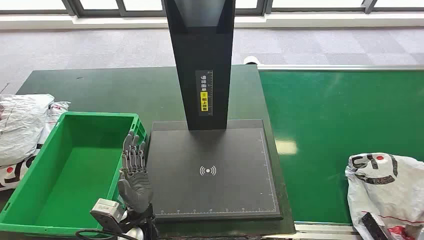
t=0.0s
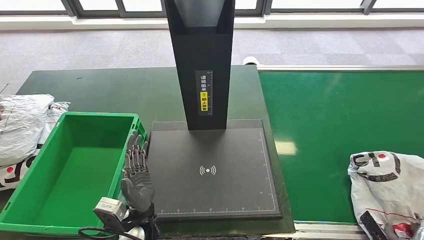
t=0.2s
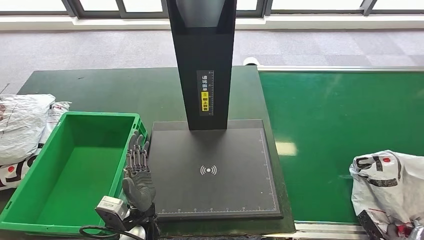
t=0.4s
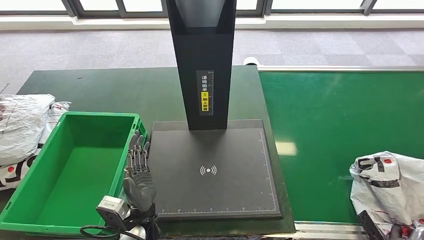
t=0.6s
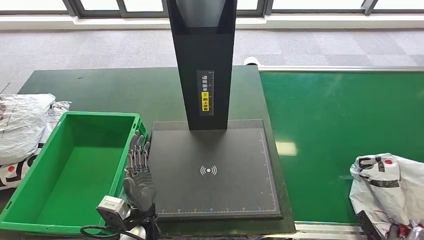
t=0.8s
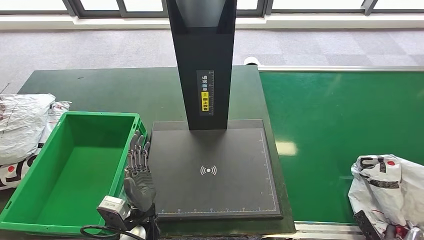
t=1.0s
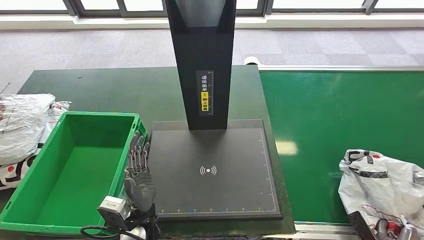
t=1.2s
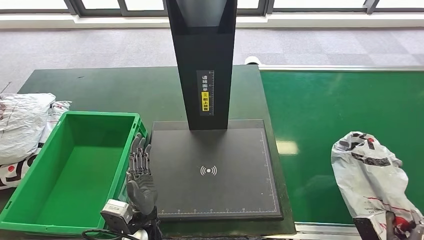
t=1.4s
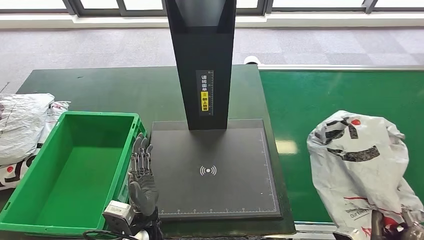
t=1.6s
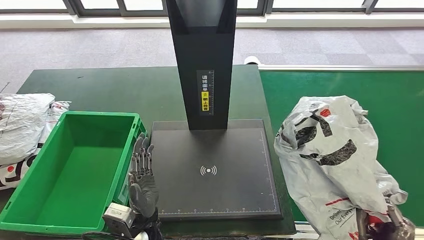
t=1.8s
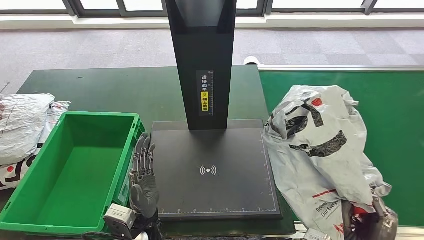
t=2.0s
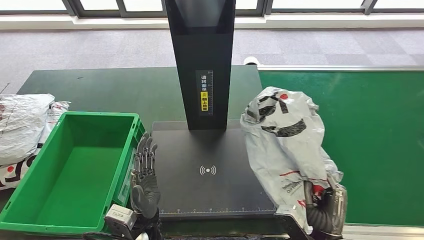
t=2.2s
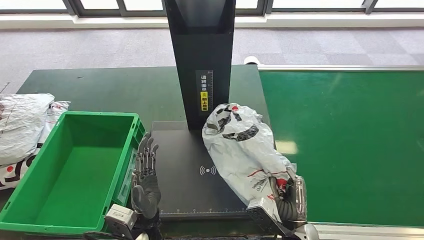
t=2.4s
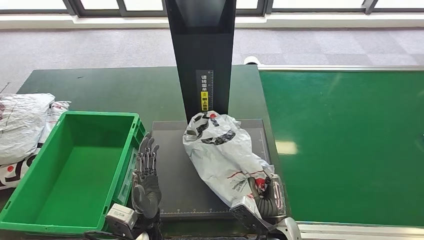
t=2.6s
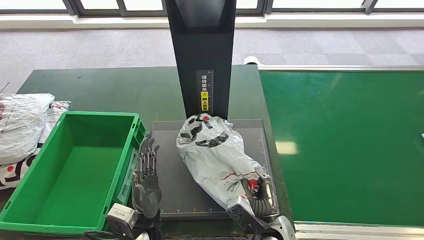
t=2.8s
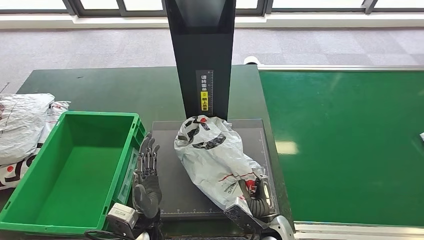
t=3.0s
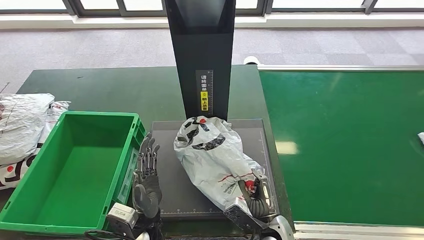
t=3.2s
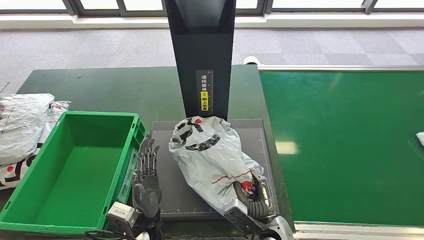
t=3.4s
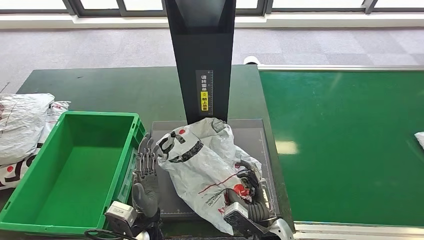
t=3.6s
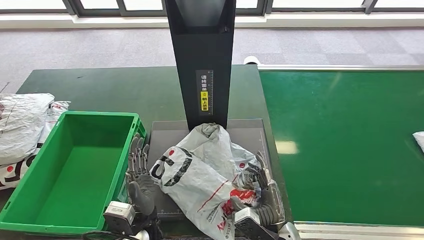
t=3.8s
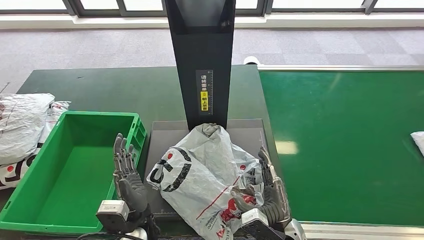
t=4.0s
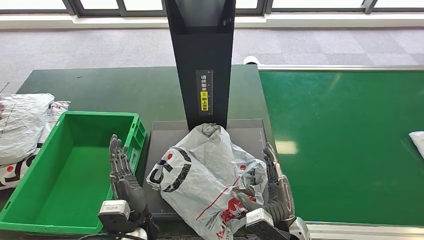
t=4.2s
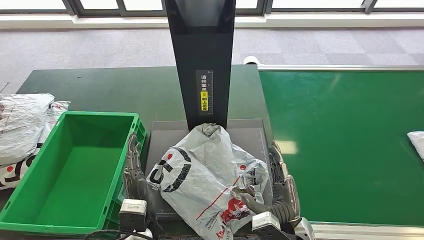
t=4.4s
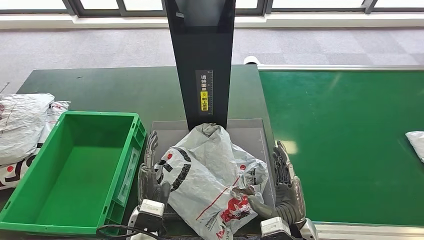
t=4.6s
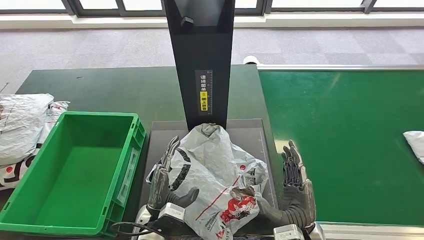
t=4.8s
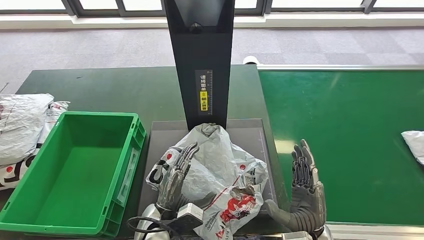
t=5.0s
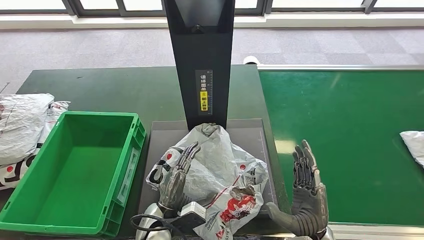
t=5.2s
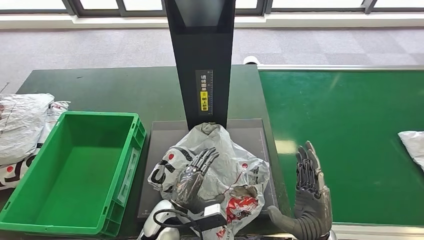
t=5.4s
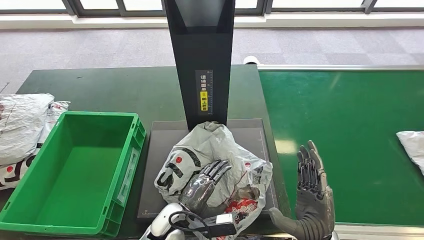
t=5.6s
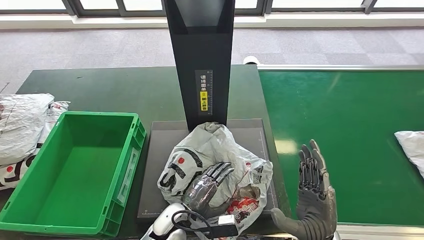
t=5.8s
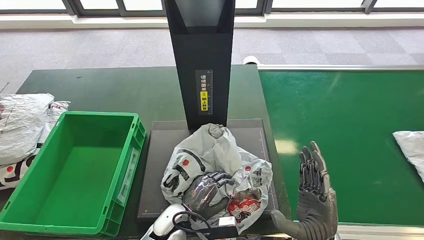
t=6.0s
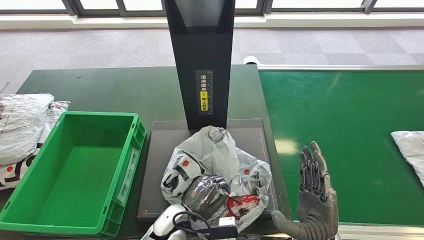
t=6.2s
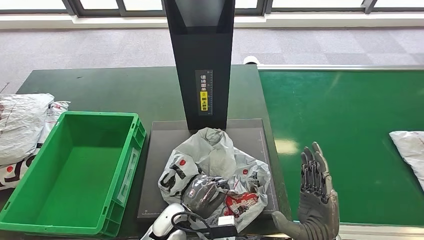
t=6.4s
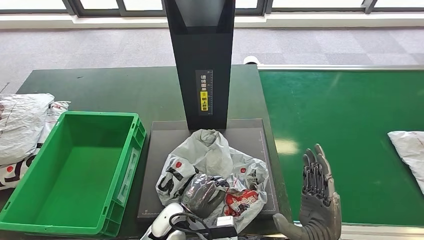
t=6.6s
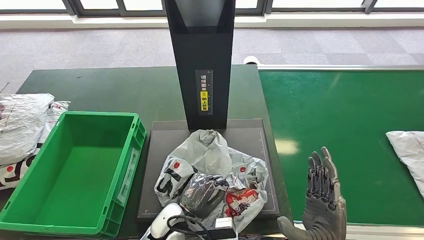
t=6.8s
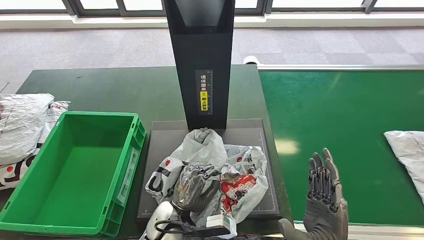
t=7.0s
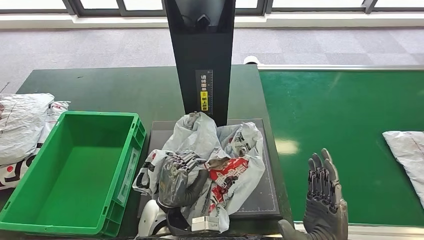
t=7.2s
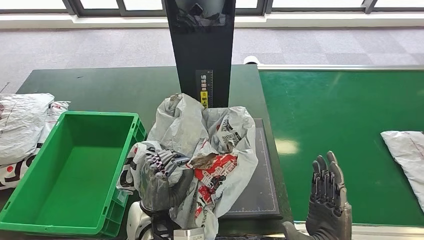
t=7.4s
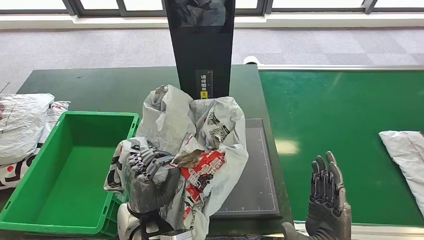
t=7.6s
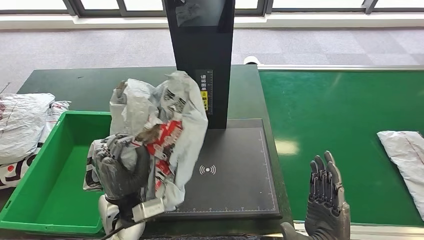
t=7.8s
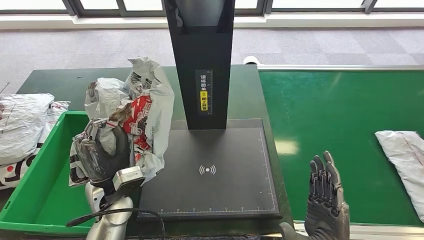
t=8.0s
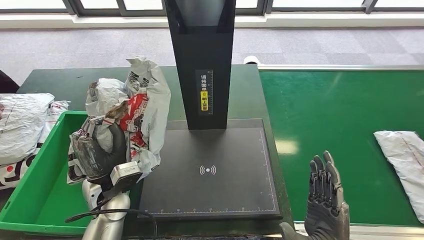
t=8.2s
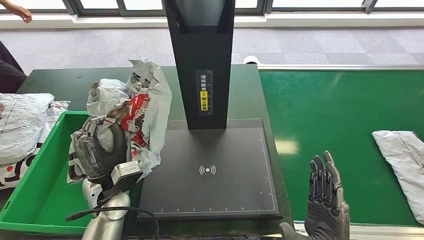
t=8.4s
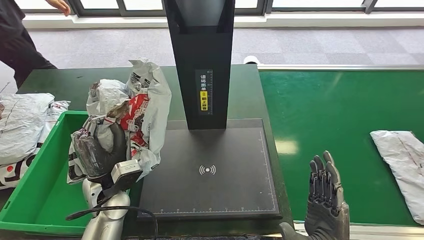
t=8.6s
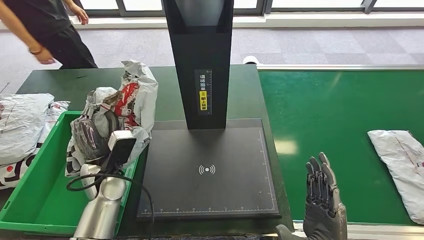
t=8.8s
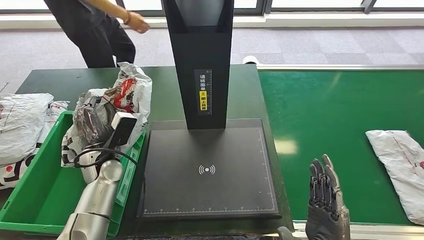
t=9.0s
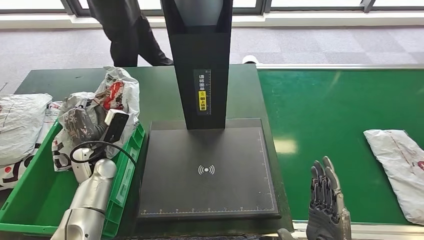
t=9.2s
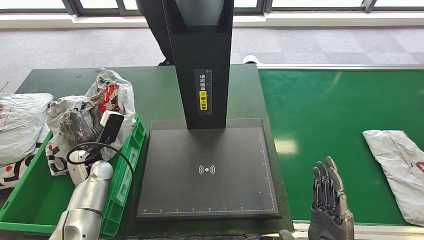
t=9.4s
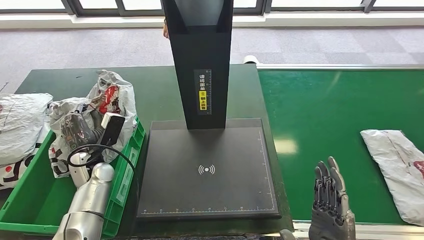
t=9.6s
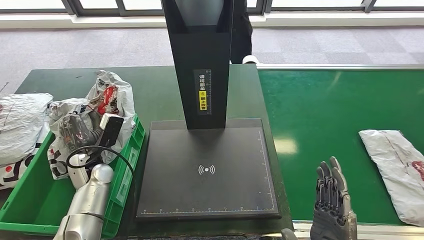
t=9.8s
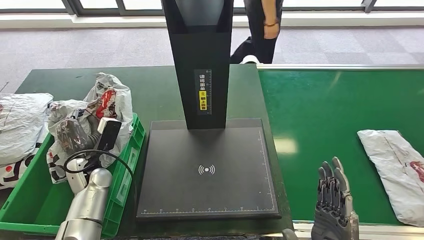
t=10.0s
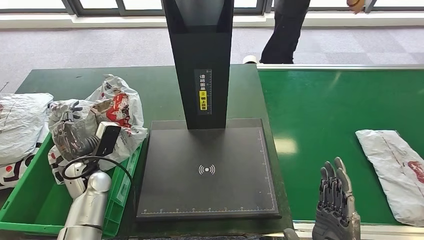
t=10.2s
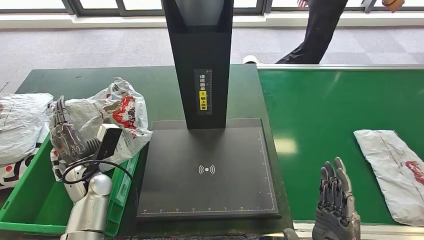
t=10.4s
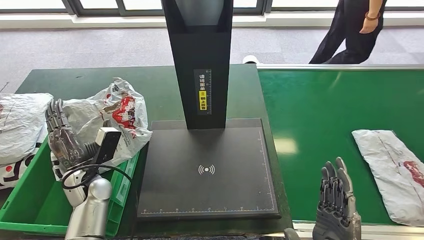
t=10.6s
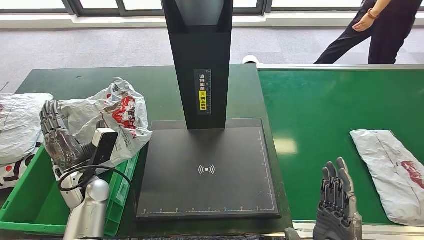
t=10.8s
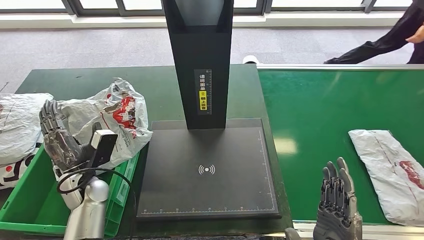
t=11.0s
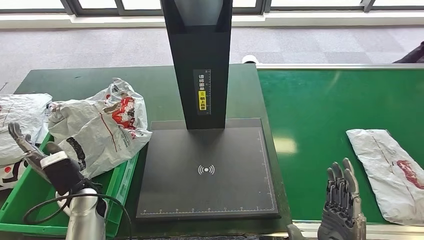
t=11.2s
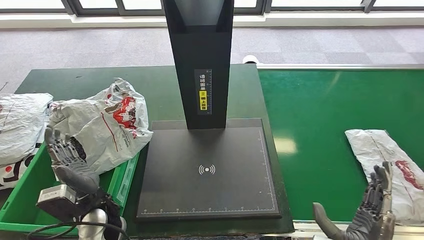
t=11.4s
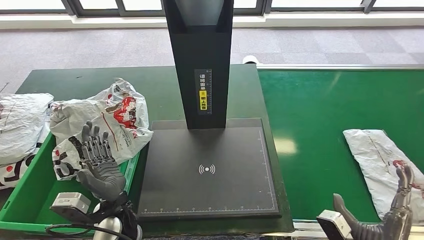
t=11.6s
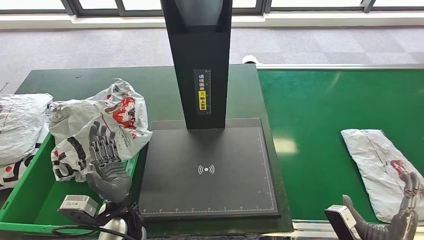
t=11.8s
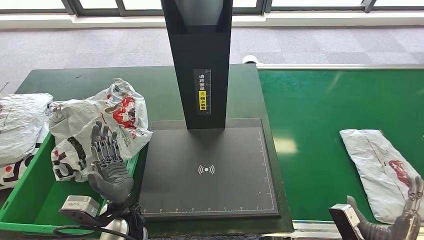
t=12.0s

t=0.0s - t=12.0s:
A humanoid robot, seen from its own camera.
Step, t=0.0s - t=2.6s: Take the parcel off the conveyor belt.
Step, t=2.8s - t=5.4s: Place the parcel onto the inbound machine.
Step, t=5.6s - t=8.4s: Pick up the parcel from the inbound machine.
Step, t=8.8s - t=11.6s: Put the parcel inside the courier box.
t=3.0s - t=4.4s: The right hand changes place by some 5 cm.
t=4.4s - t=6.0s: The right hand shifts by roughly 5 cm, while the left hand shifts some 10 cm to the right and downward.
t=6.0s - t=7.6s: The left hand heads upward and to the left, covering about 15 cm.
t=10.4s - t=12.0s: The left hand is displaced to the right and backward by about 15 cm, while the right hand is displaced to the right and downward by about 15 cm.

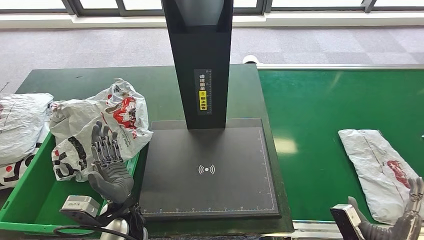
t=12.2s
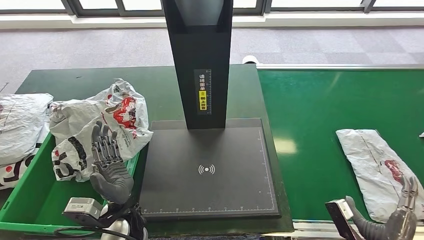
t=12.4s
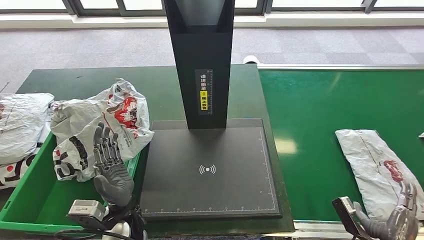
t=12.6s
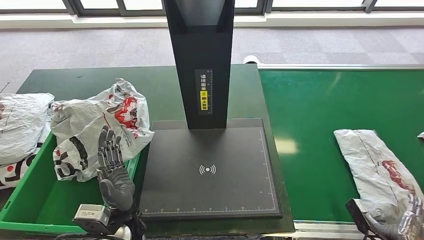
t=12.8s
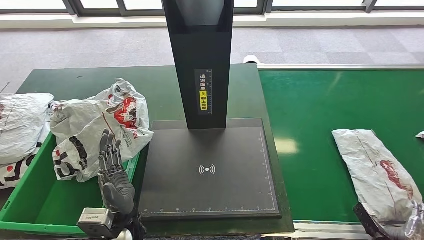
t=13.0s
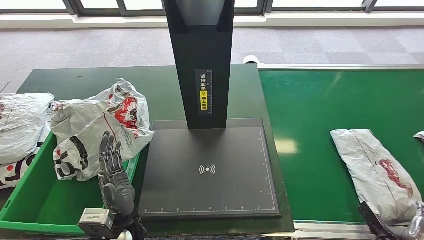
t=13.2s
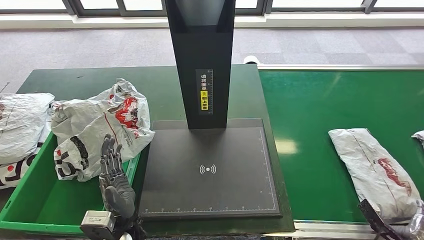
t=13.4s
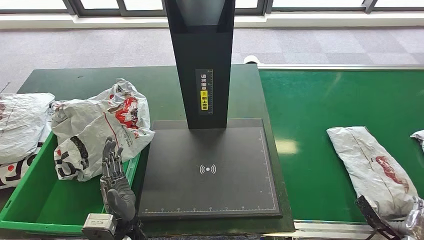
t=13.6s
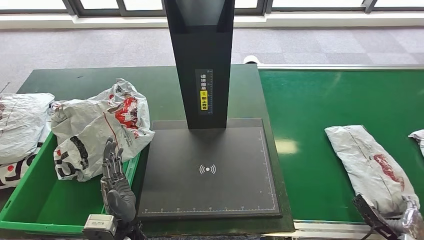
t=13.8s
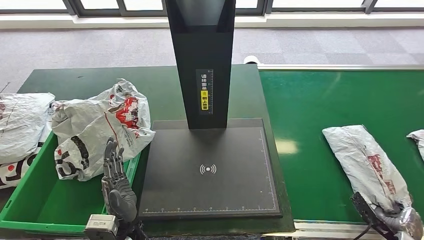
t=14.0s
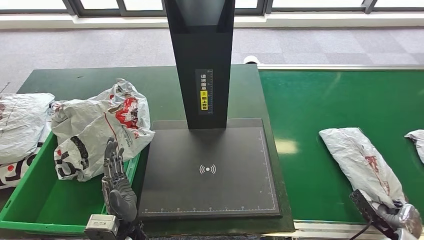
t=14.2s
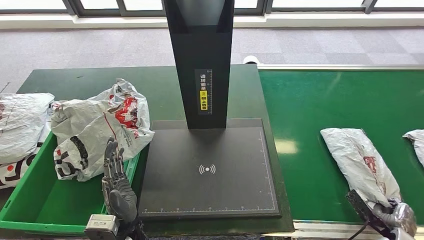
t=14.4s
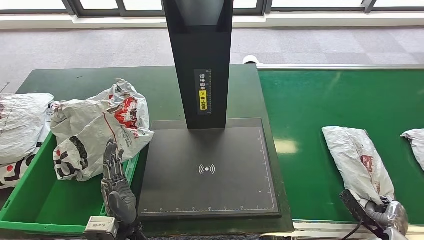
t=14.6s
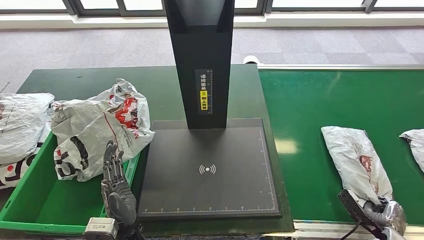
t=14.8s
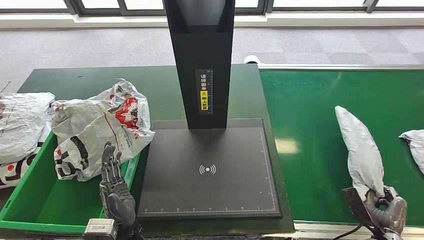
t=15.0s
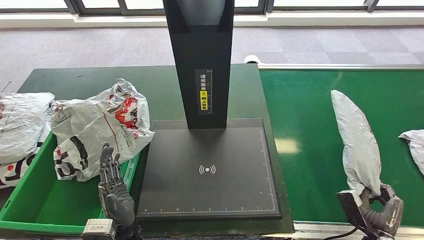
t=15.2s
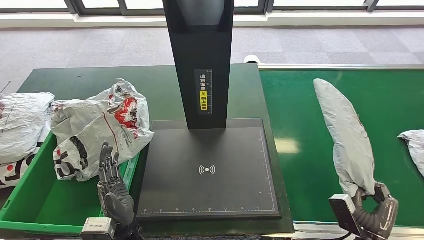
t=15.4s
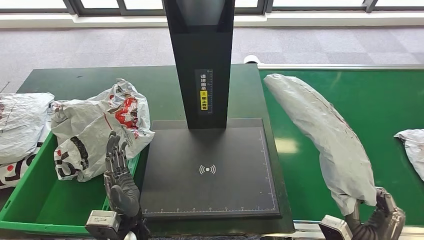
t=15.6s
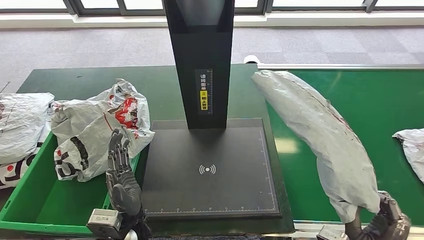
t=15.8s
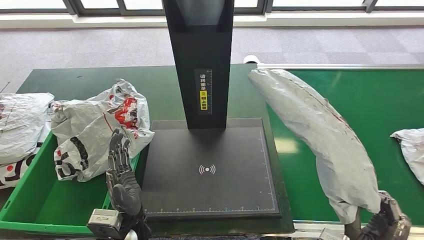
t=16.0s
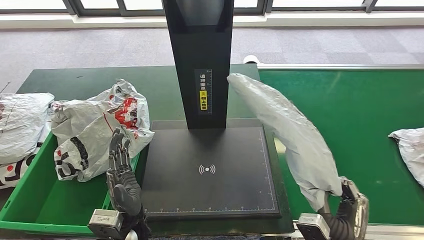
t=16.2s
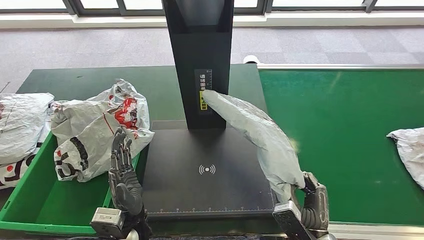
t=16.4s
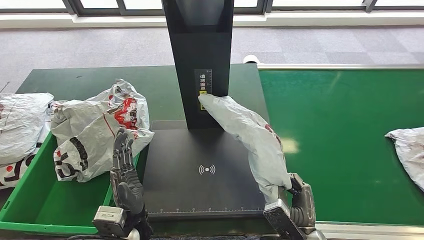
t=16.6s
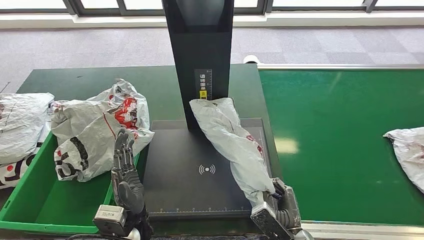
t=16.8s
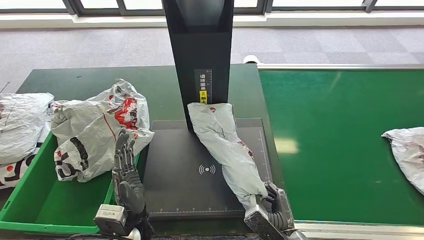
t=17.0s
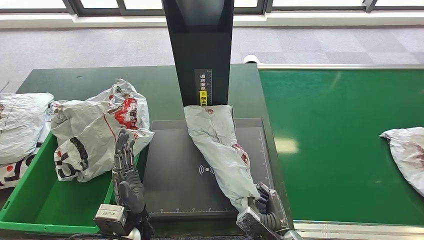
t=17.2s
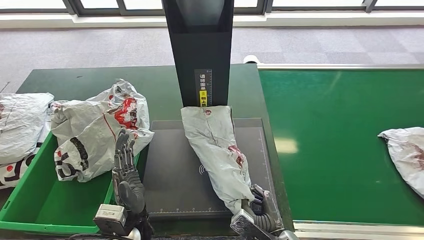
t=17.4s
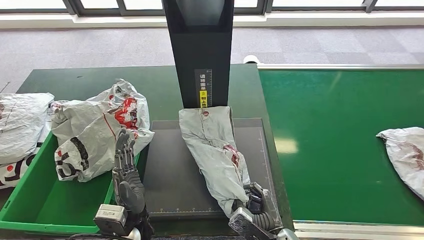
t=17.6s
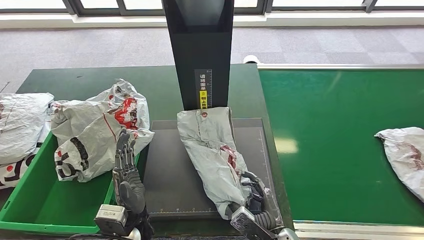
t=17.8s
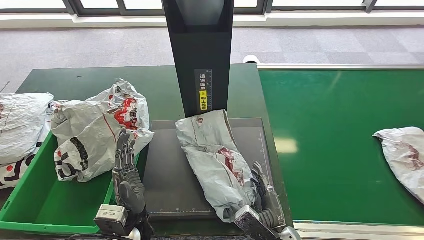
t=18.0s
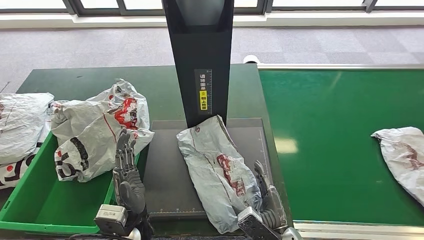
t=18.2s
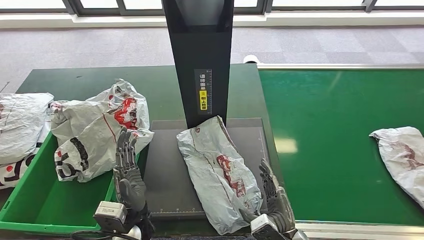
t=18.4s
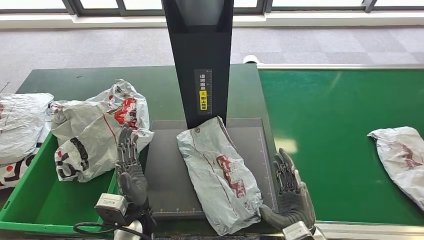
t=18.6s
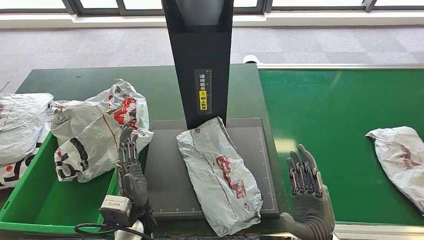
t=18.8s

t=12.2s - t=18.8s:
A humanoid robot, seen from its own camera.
Step, t=13.4s - t=15.2s: Pick up the parcel from the conveyor belt.
Step, t=15.4s - t=18.4s: Place the parcel onto the inbound machine.
t=12.2s - t=13.8s: The right hand travels to the right and downward by some 15 cm.
t=13.8s - t=15.4s: The right hand moves to the left, roughly 10 cm.
t=15.4s - t=17.2s: The right hand heads to the left, covering about 20 cm.
t=17.2s - t=18.8s: The right hand travels upward by about 10 cm.
